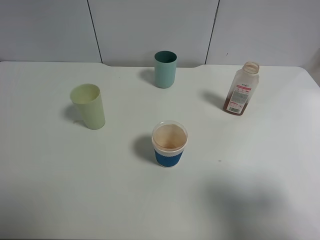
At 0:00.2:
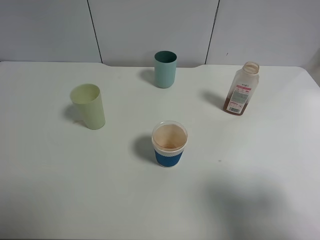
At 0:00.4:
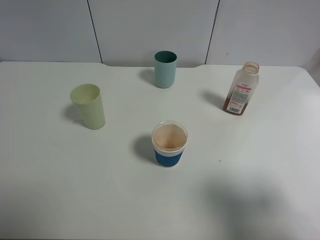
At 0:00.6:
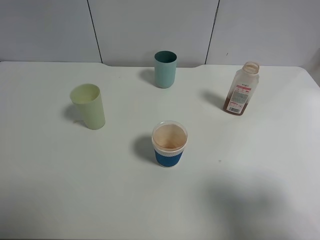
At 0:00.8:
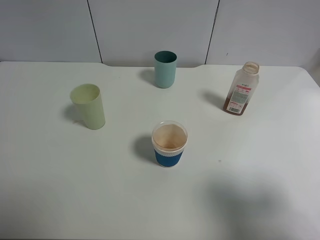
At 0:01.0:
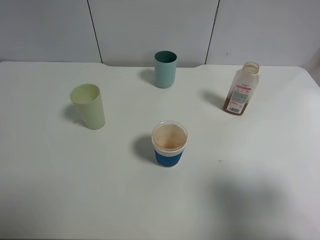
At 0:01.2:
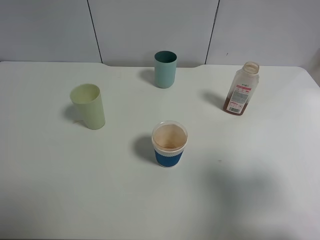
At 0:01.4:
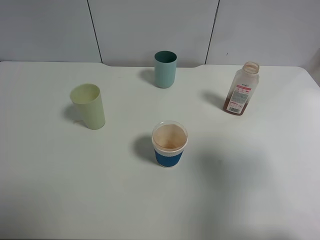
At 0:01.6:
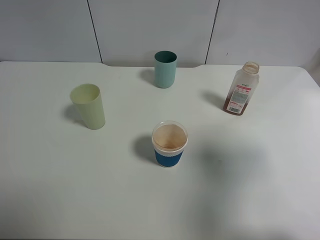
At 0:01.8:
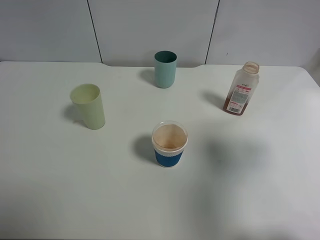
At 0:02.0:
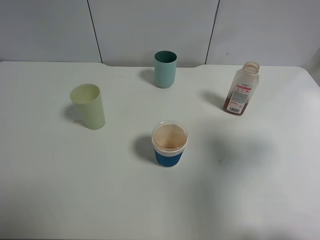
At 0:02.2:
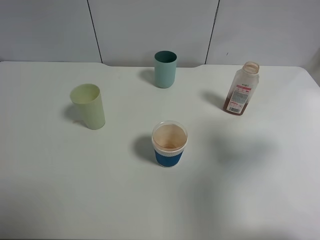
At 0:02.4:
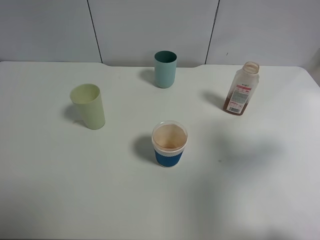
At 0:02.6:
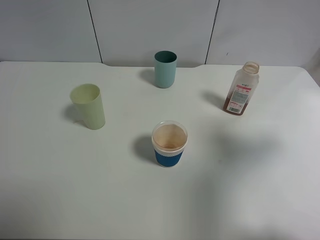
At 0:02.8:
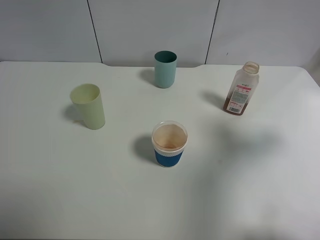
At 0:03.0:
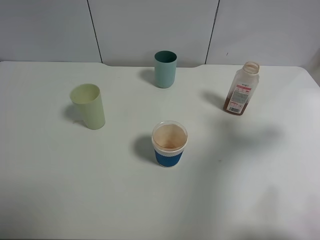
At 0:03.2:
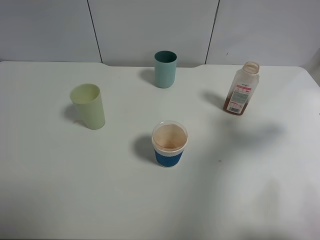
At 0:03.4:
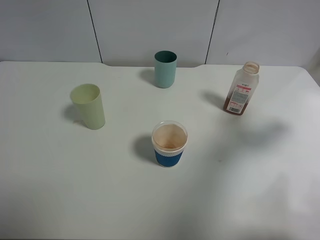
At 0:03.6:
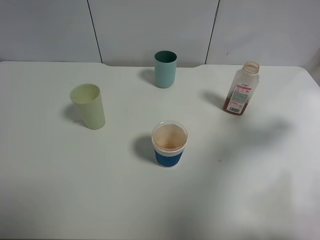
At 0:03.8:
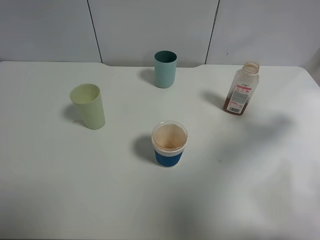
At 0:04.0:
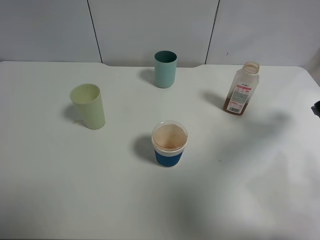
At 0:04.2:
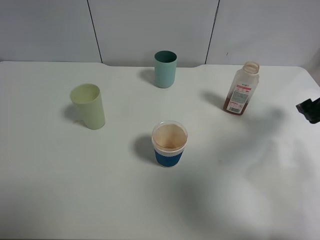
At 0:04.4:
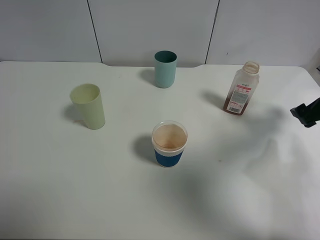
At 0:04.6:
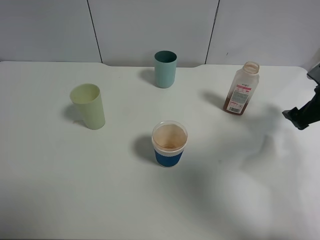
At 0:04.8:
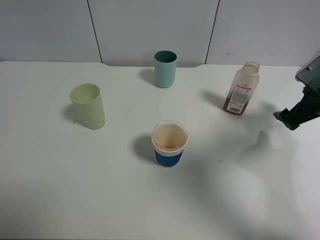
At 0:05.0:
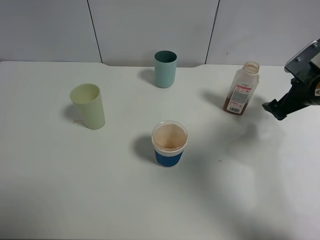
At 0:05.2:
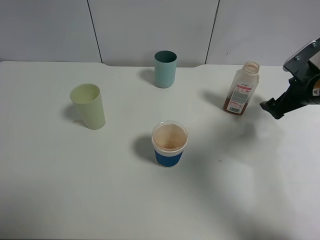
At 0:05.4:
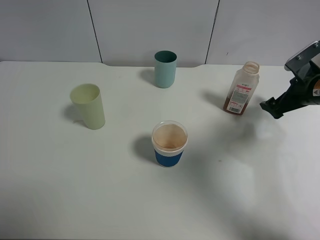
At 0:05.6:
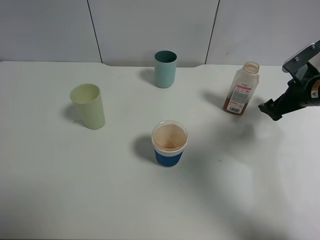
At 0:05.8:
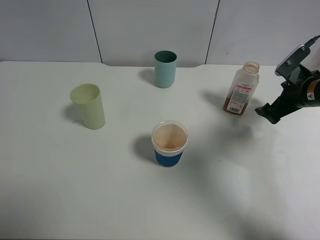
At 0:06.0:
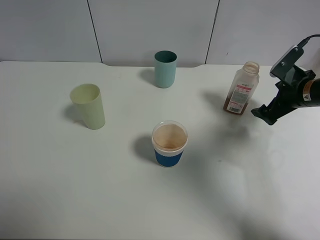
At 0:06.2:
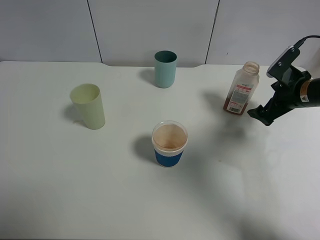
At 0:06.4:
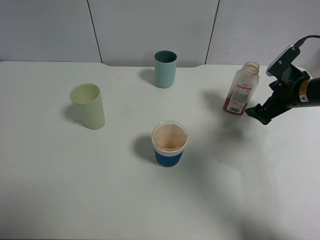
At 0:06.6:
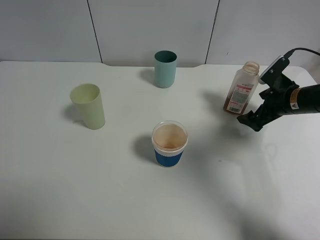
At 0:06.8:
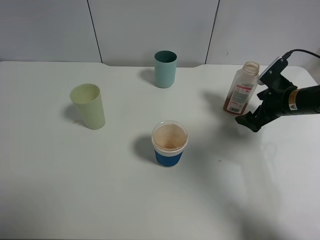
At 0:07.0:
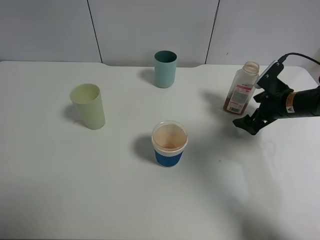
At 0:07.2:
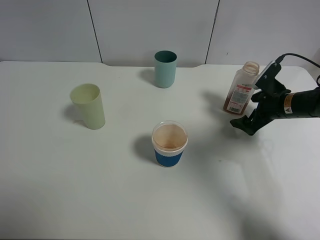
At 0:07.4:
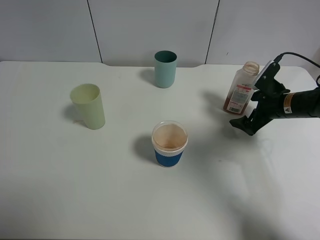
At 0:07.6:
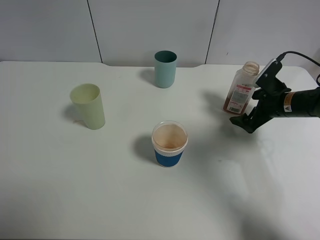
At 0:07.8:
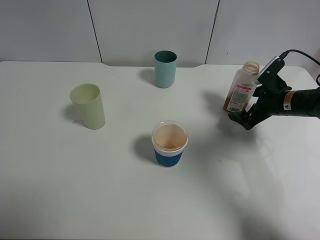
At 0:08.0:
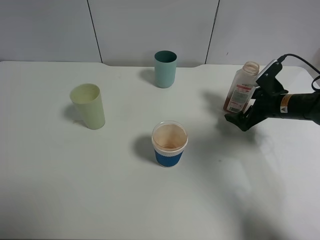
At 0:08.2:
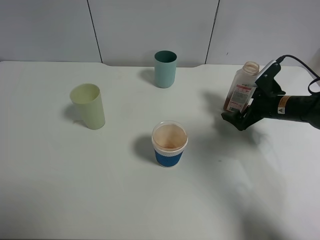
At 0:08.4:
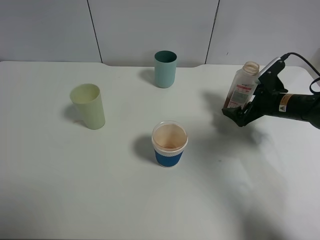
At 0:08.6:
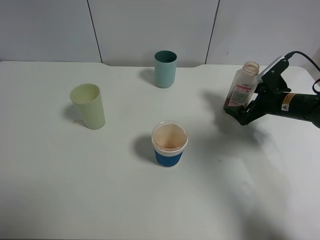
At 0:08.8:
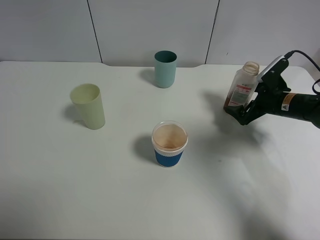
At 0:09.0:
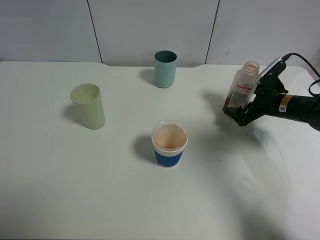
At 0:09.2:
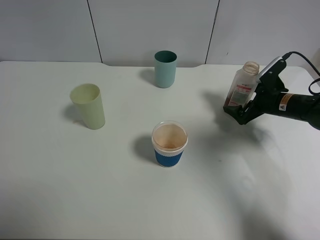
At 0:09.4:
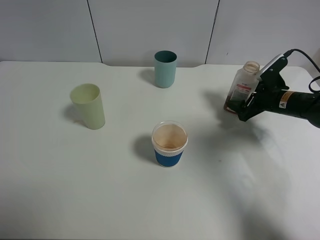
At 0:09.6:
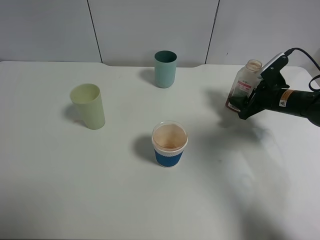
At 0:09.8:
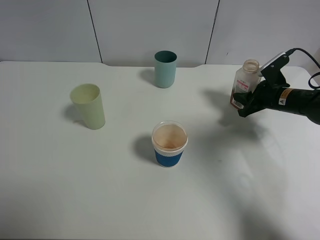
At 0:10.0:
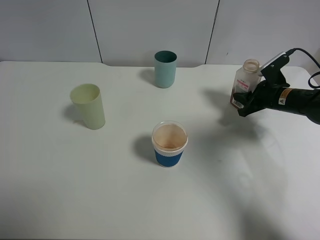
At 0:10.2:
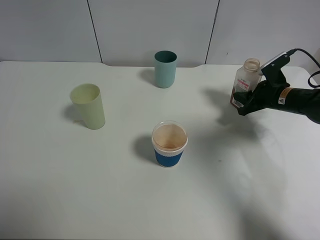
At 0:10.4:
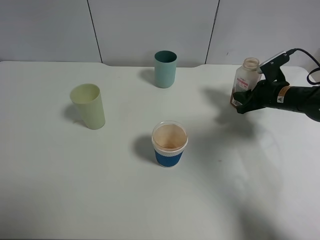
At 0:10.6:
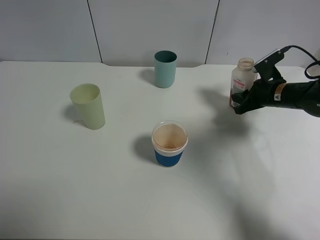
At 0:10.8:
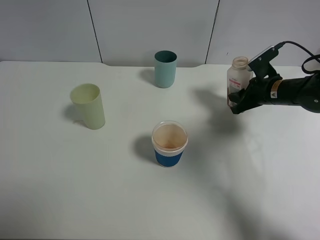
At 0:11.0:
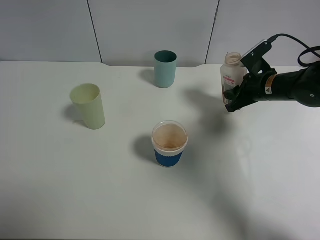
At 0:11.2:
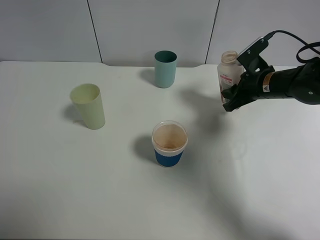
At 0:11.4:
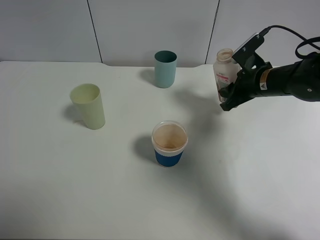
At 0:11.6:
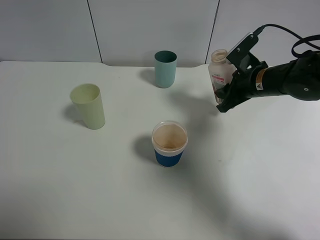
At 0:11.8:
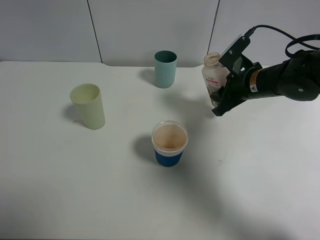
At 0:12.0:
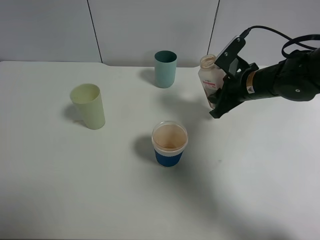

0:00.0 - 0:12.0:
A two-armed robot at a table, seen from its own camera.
Task of the whole recording: use a clamp to hold the bottle of the drink, pour the beverage into a random cup, then clamp the cup containing the drink and pour the drink into another random cup.
Step, 0:00.0 - 0:10.8: Pick up the drink bottle with right gripper.
0:00.0 - 0:01.6: The right gripper goes roughly 10 cm forward.
0:01.6 - 0:03.0: The right gripper is displaced forward and downward by roughly 10 cm.
0:03.0 - 0:04.4: The right gripper is displaced downward and forward by approximately 10 cm.
0:04.4 - 0:06.0: The right gripper shifts approximately 5 cm to the left.
0:06.0 - 0:07.6: The grippers stay close to where they were, moving slightly.
0:07.6 - 0:09.0: The grippers move only a little.
0:09.0 - 0:10.4: The right gripper closes its fingers.
0:10.4 - 0:12.0: The right gripper goes roughly 10 cm to the left and upward.

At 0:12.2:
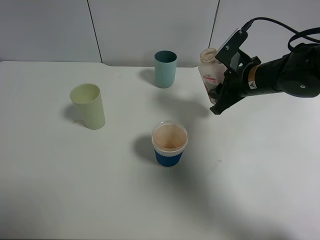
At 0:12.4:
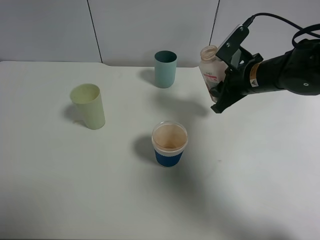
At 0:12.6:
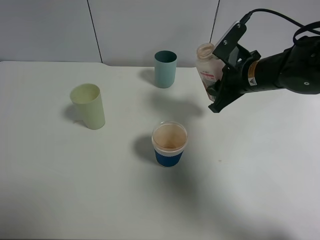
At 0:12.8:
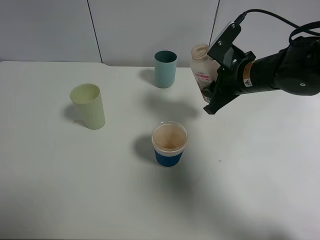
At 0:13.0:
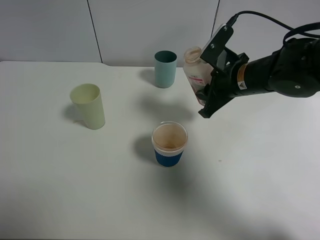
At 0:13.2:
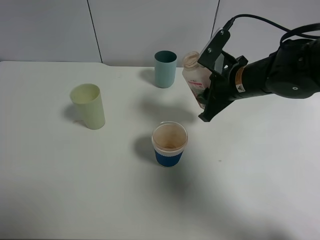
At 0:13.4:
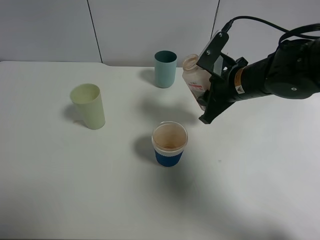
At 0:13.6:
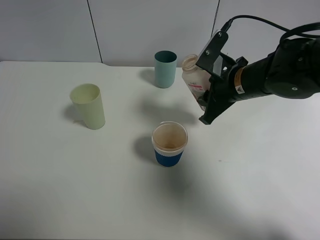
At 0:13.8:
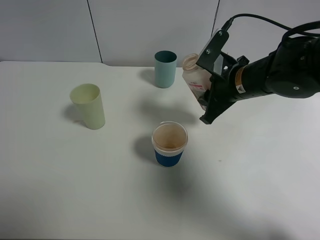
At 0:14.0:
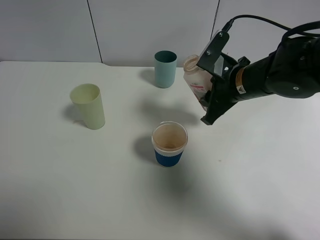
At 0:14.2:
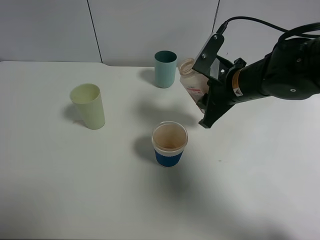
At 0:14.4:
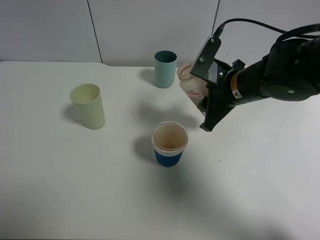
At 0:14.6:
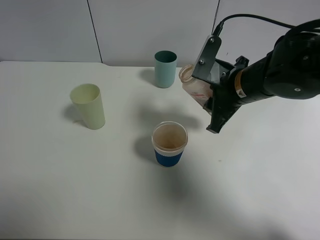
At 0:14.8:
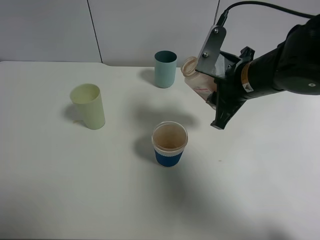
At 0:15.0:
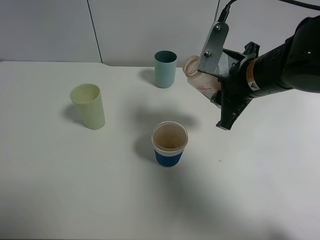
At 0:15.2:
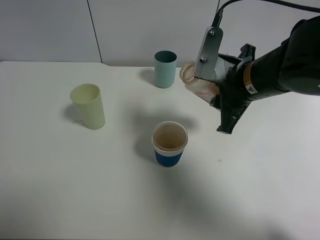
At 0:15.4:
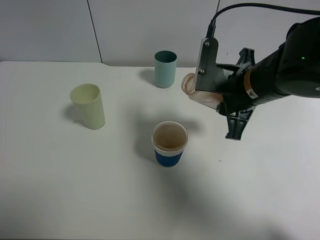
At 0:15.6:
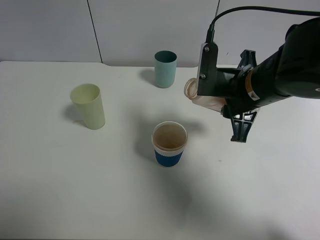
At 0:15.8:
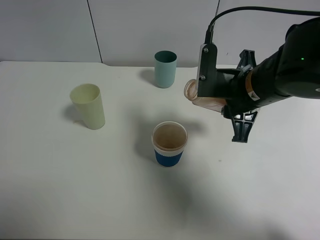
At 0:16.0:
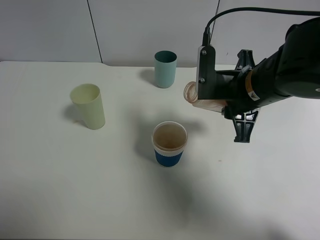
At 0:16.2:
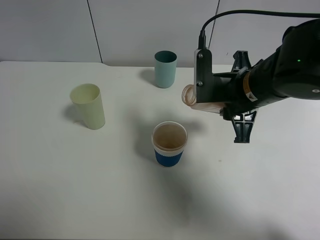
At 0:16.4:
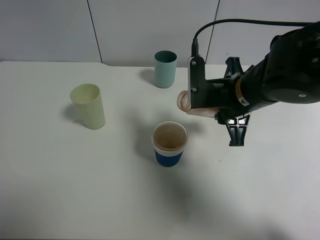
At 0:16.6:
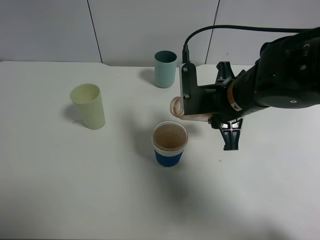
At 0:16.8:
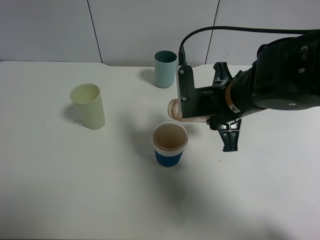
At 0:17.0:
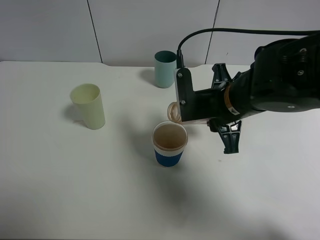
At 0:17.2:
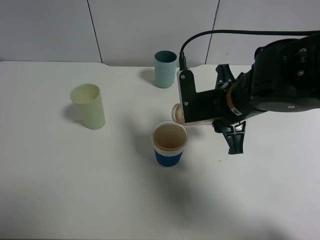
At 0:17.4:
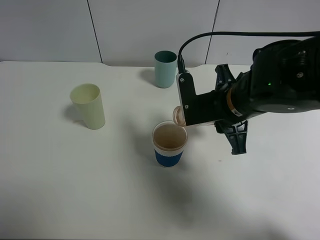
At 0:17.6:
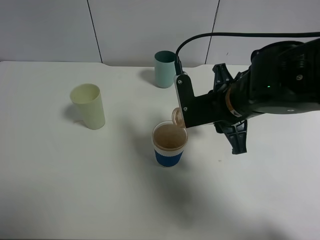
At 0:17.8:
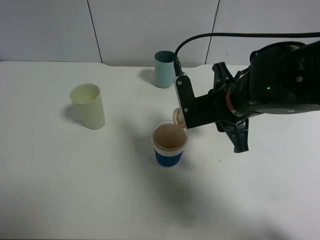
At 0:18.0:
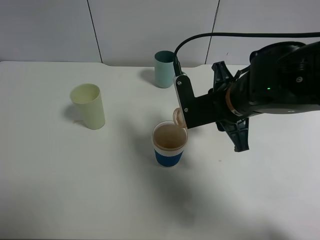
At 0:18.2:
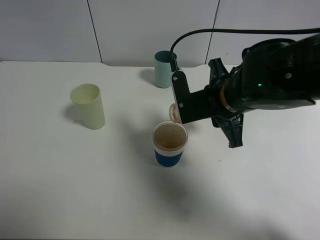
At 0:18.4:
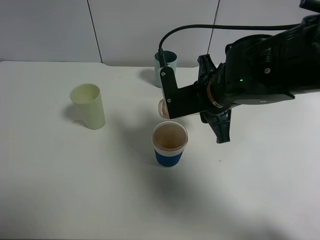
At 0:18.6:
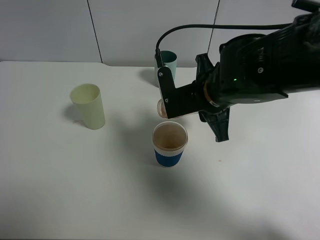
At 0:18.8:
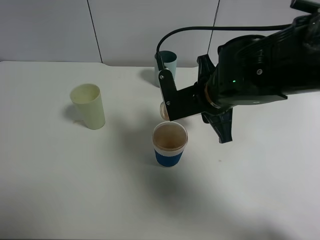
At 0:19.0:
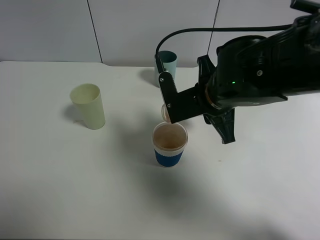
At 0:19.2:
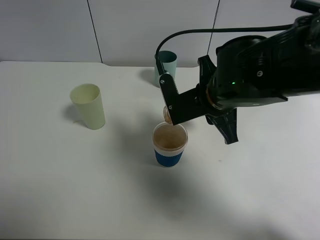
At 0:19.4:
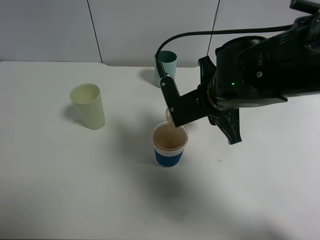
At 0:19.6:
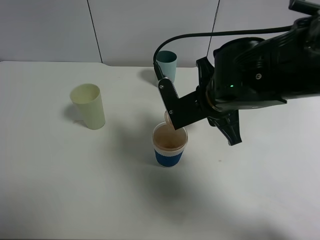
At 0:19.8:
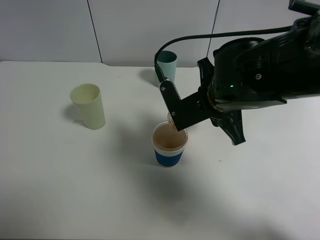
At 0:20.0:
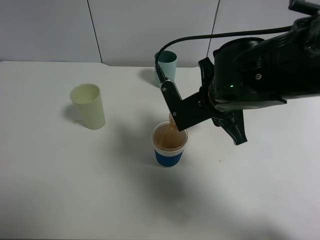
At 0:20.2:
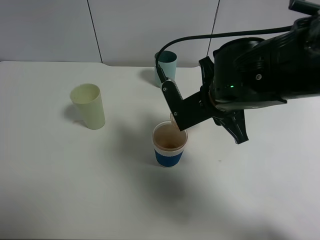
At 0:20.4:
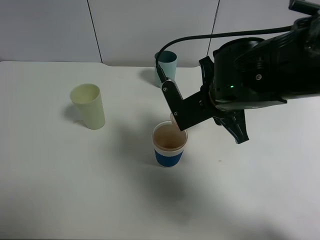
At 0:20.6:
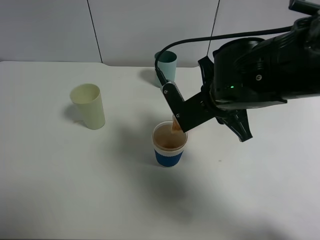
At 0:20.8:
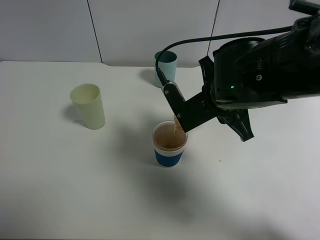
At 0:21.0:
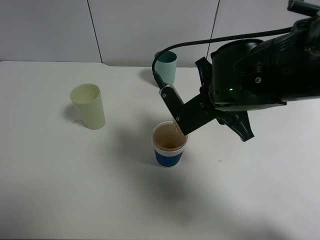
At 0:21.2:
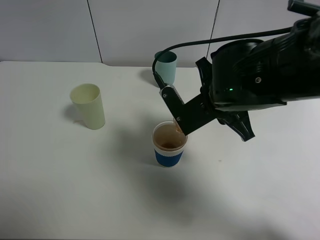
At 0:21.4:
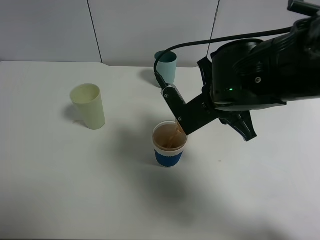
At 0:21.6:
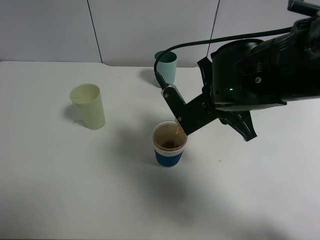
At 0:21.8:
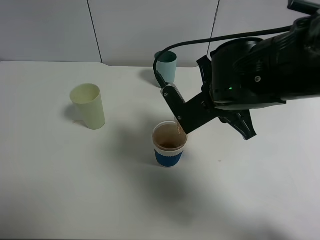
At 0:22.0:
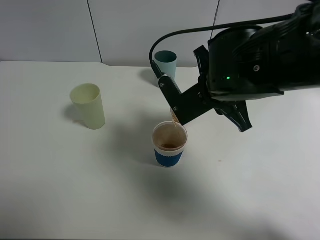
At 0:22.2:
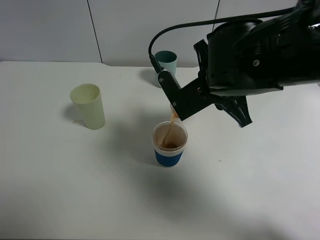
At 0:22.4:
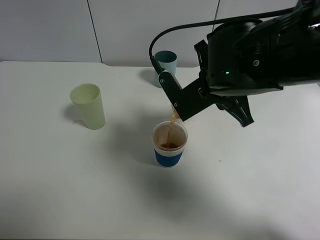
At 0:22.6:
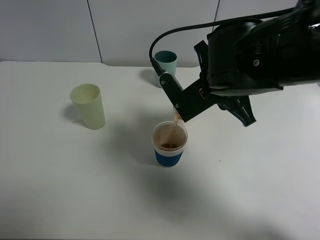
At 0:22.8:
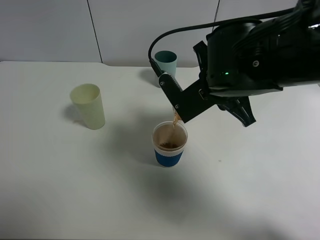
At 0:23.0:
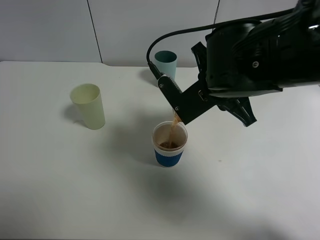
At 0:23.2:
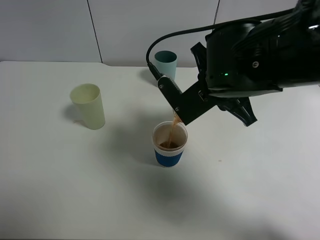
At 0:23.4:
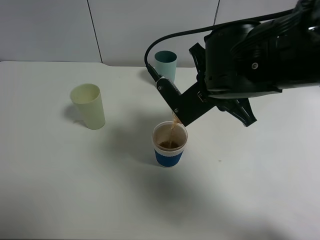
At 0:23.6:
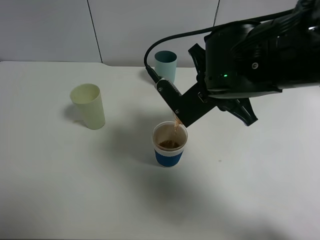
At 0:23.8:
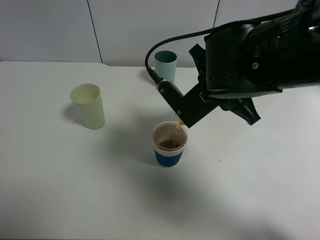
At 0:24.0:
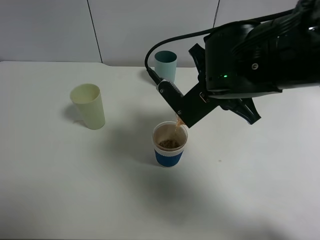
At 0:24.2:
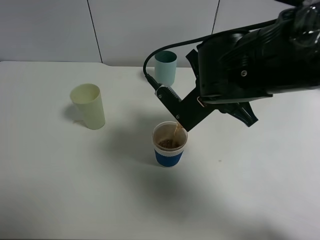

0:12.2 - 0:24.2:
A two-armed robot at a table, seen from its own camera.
Task of the whole recording: use a clamp to hold the bottle of the drink, pour the beverage into a random cup, then clamp the cup containing the drink and pour the drink into another random cup.
0:12.2 - 0:13.8: The right gripper changes place by roughly 5 cm.
0:13.8 - 0:15.2: The right gripper ends up approximately 5 cm from where it was.
0:16.6 - 0:18.2: The grippers stay close to where they were, moving slightly.
0:18.2 - 0:19.8: The grippers stay close to where they were, moving slightly.
0:19.8 - 0:24.2: There are only small adjustments of the grippers.
